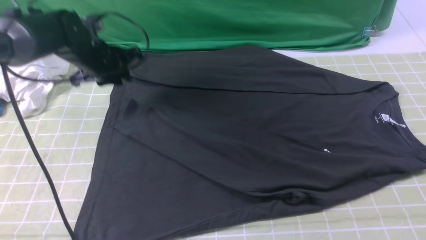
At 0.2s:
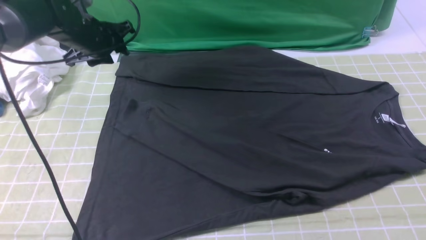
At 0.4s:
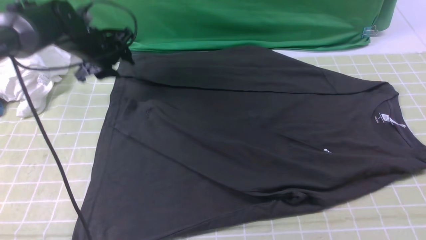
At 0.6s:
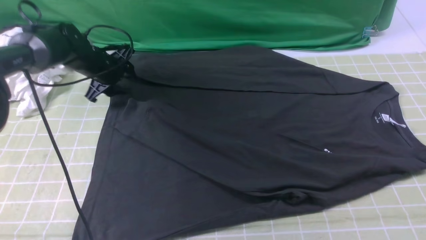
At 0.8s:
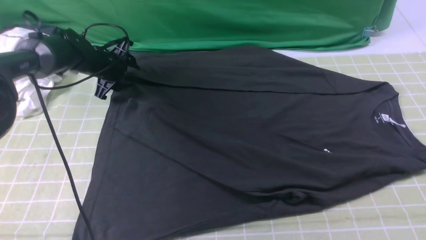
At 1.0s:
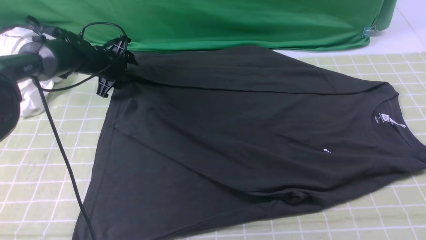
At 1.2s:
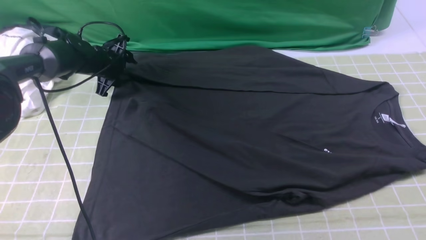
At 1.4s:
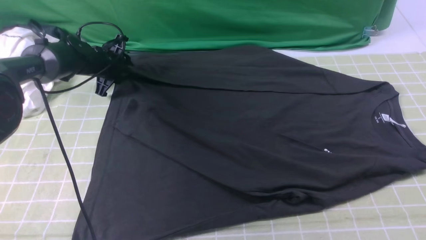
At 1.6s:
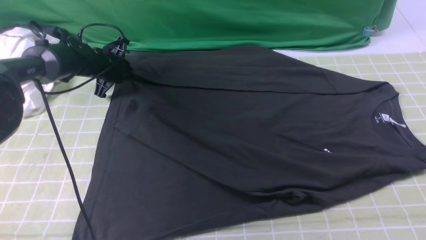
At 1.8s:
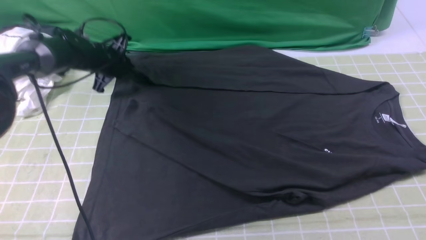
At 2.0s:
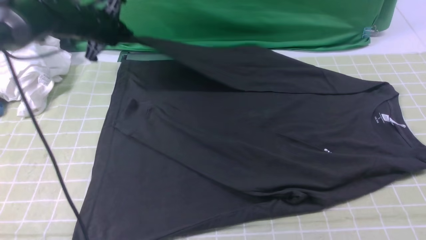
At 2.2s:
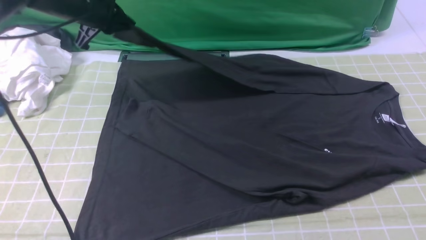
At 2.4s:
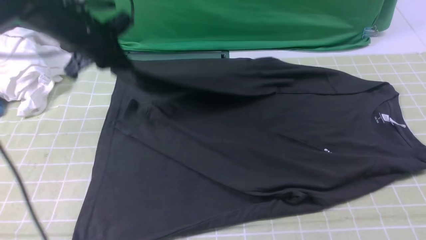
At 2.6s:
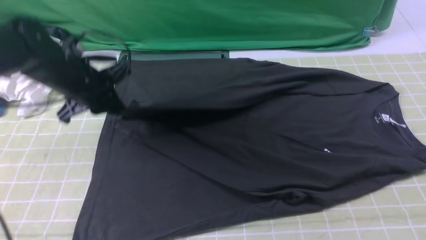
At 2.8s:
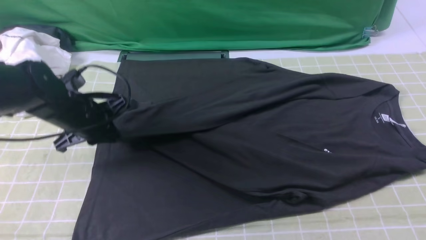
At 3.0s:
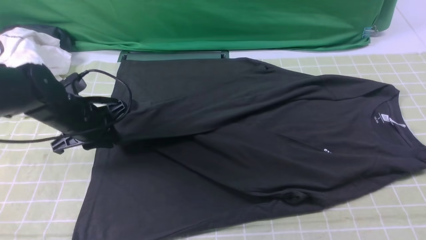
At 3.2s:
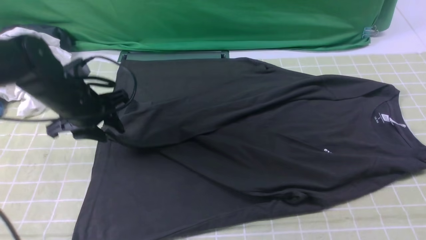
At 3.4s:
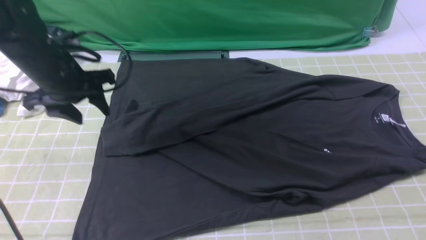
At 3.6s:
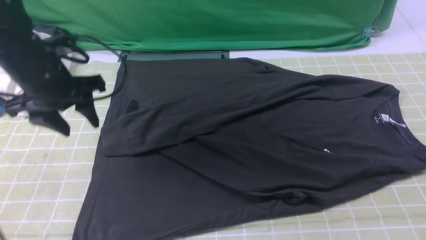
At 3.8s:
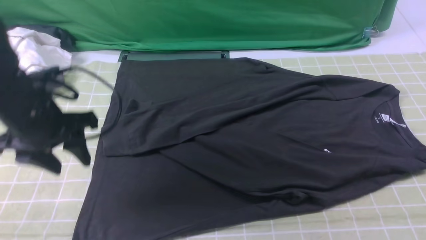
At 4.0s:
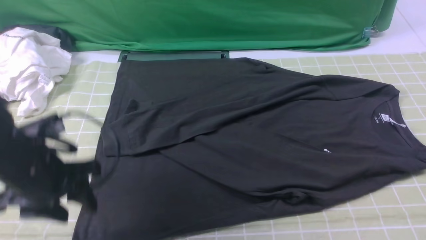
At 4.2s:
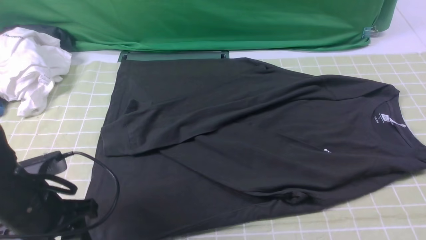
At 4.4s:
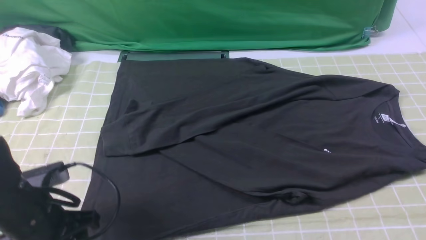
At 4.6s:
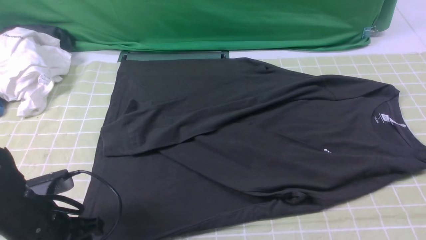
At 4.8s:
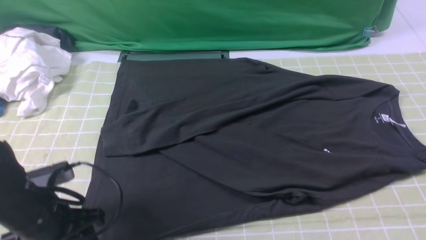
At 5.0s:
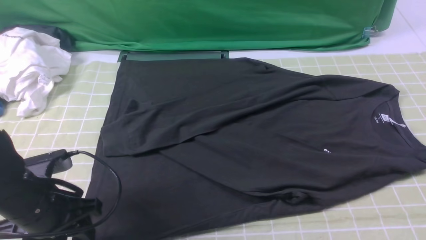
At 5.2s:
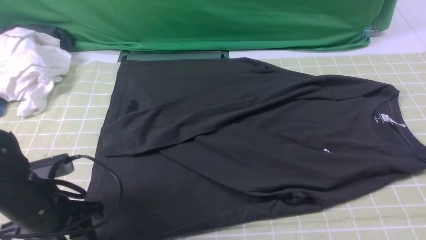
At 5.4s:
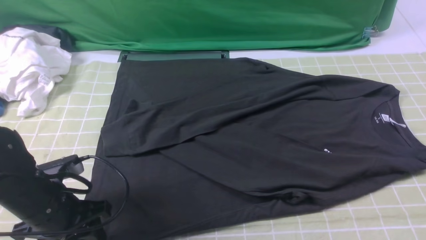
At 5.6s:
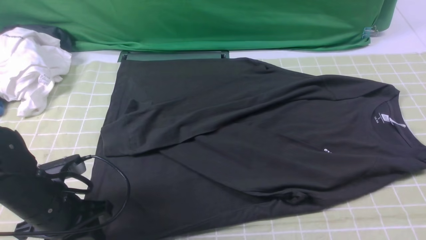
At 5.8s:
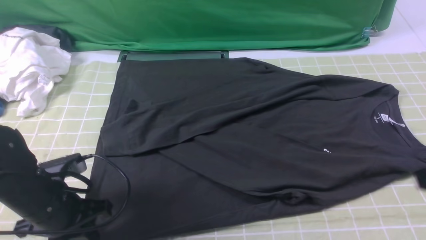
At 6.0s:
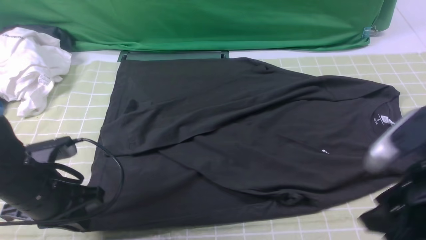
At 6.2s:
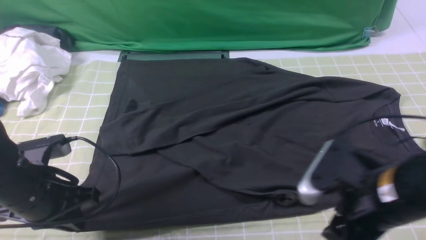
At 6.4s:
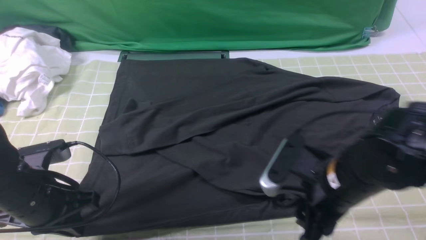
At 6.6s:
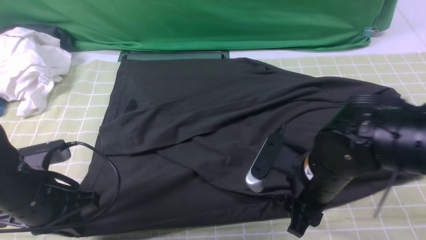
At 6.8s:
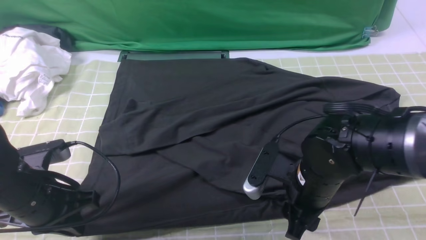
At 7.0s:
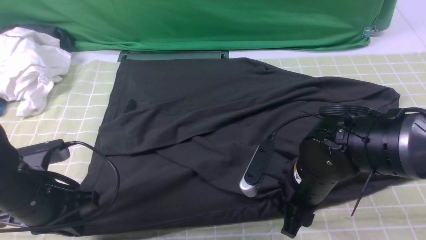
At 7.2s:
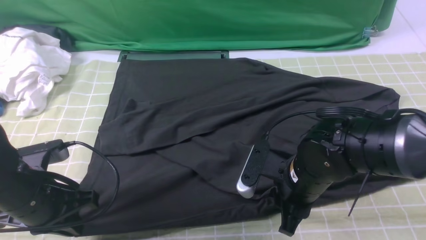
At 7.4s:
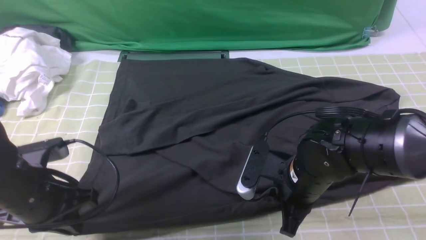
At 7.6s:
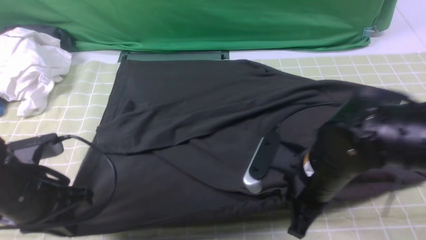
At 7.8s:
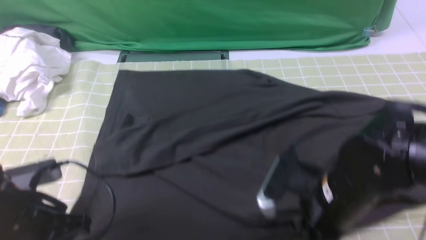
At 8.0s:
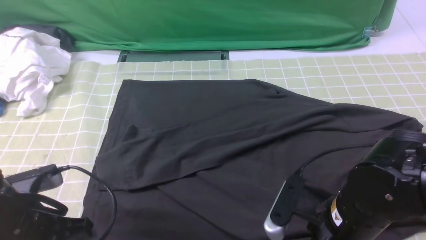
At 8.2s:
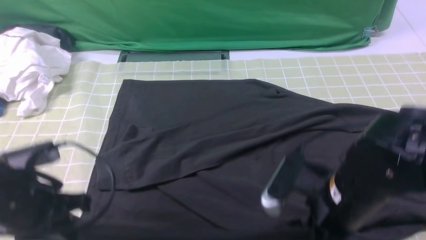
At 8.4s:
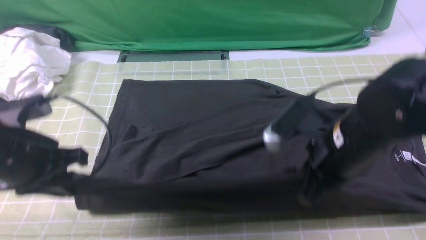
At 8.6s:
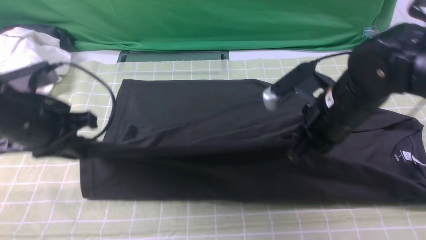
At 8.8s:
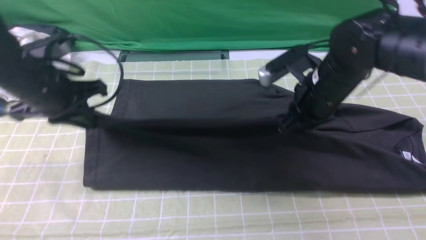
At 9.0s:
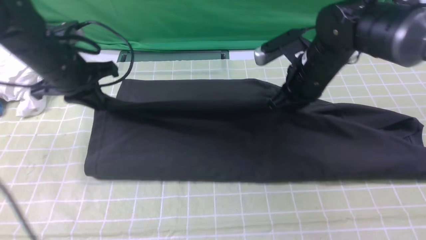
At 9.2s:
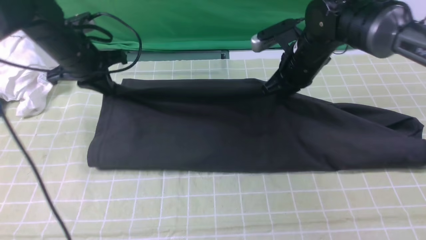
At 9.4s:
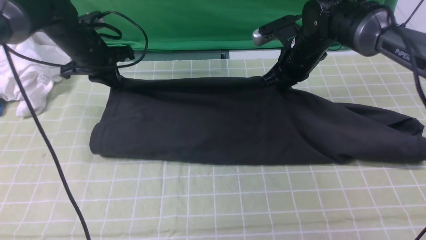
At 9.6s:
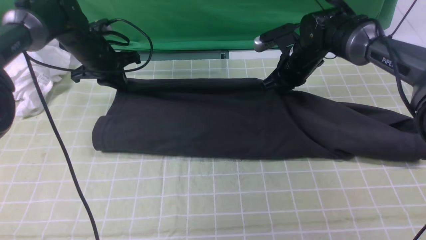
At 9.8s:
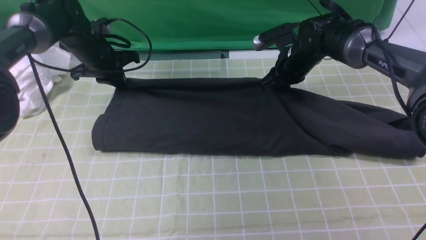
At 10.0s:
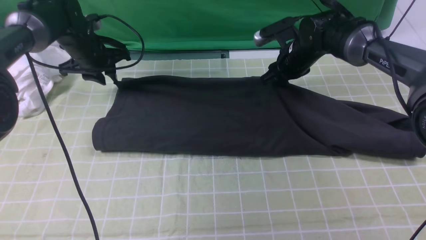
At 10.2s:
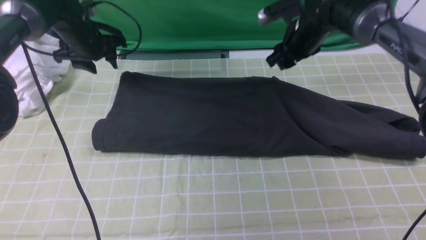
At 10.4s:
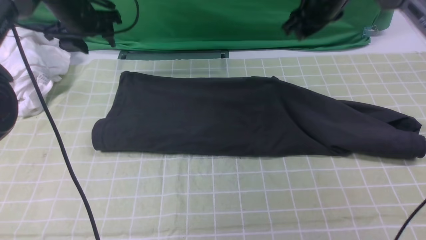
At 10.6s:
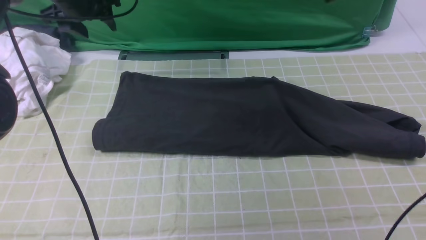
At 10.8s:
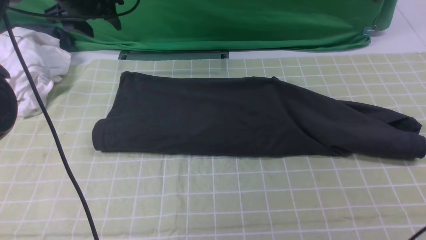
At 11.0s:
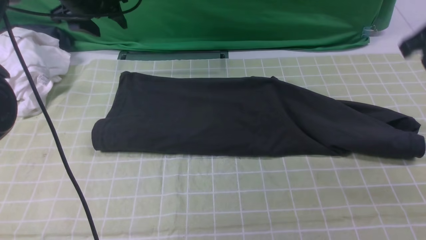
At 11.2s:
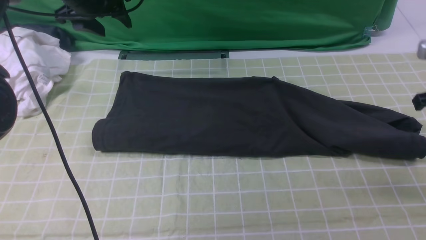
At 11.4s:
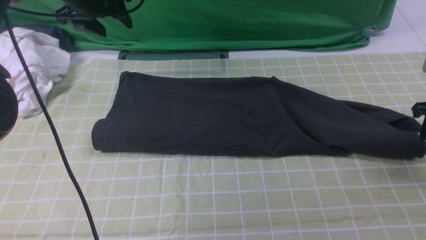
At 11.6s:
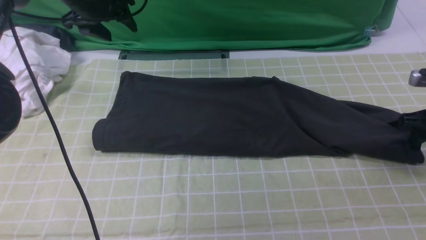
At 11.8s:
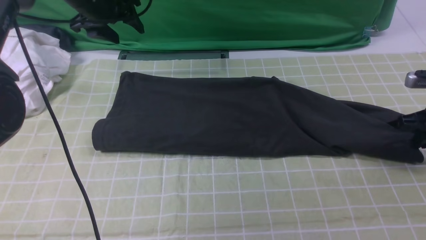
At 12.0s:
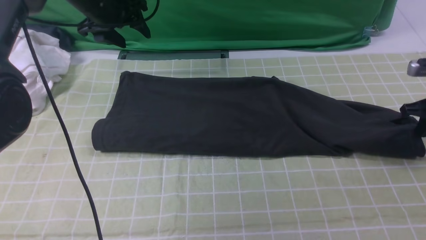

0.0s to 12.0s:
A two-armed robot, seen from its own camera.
Step, 0.2s to 1.6s: use the left arm to clamp the cuff farthest from it.
Step, 1.8s to 3.2s: use the left arm to drag and drop the cuff onto the cuff closest to the left arm.
Step, 3.4s to 7.4s: use both arms simultaneously to clamp the lower edge of the clothing fabric.
Step, 7.6s to 10.2s: use both arms to drag the lower edge of the fabric forward and fold it over the upper edge.
0.0s to 1.6s: The left gripper heads downward and forward, covering some 10 cm.
1.6s to 3.0s: The left gripper shifts approximately 15 cm backward.
3.0s to 4.4s: The left gripper travels backward by about 15 cm, and opens up.
4.4s to 6.0s: The right gripper moves to the left and downward, about 10 cm, and opens. The left gripper closes.
6.0s to 7.6s: The right gripper shifts roughly 15 cm to the left and downward, and closes its fingers.
7.6s to 9.0s: Both grippers travel together forward, approximately 20 cm.
9.0s to 10.4s: The right gripper travels upward and forward by some 10 cm, and opens up. The left gripper travels forward by some 10 cm, and opens.
10.4s to 12.0s: The right gripper heads to the right, downward and backward, covering approximately 25 cm, and closes.

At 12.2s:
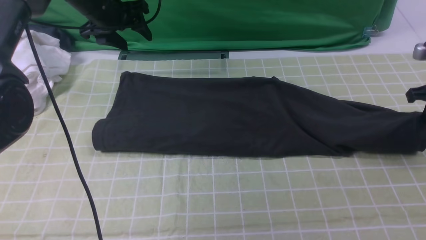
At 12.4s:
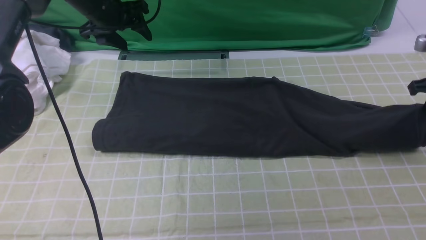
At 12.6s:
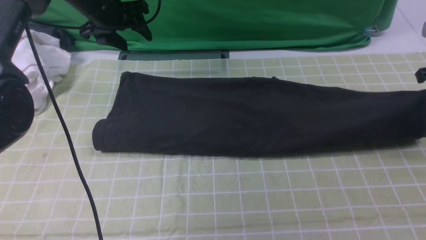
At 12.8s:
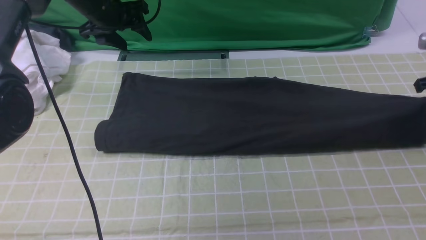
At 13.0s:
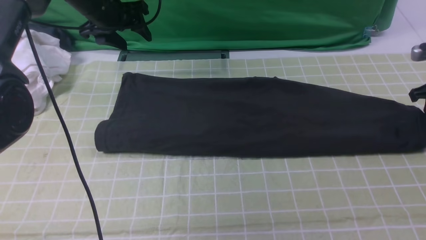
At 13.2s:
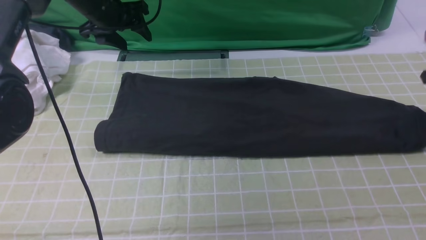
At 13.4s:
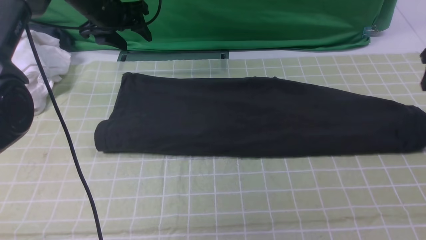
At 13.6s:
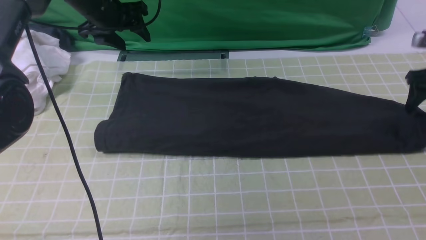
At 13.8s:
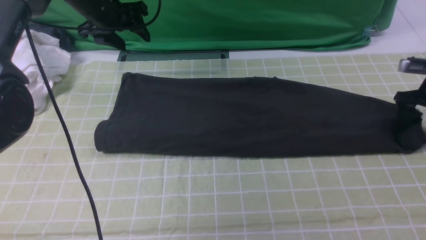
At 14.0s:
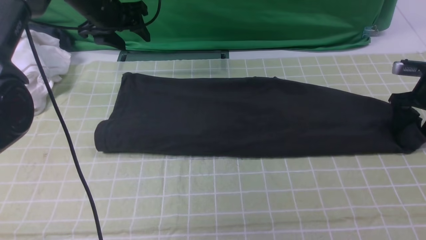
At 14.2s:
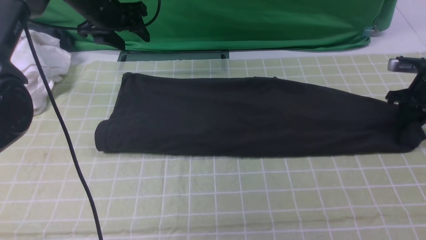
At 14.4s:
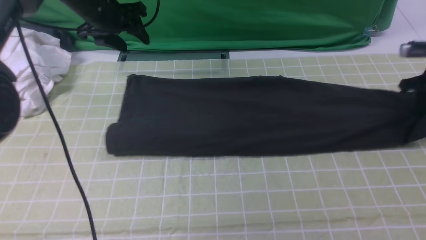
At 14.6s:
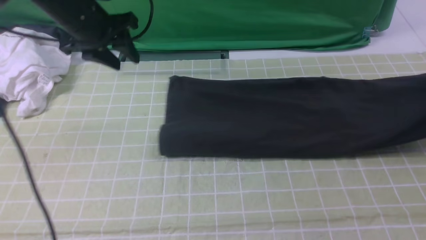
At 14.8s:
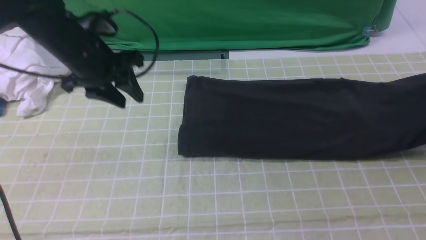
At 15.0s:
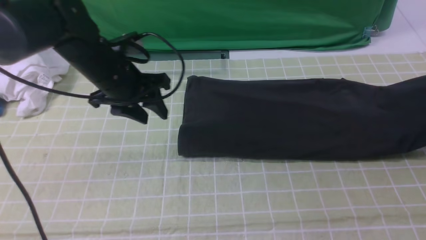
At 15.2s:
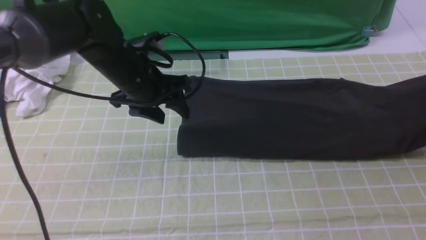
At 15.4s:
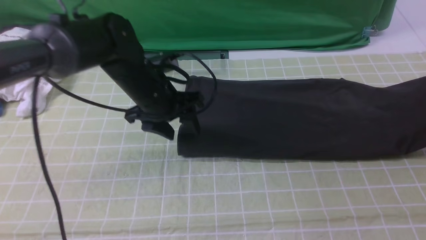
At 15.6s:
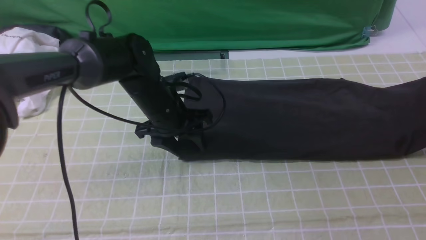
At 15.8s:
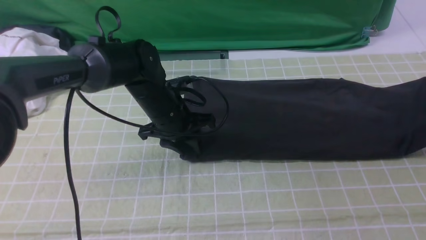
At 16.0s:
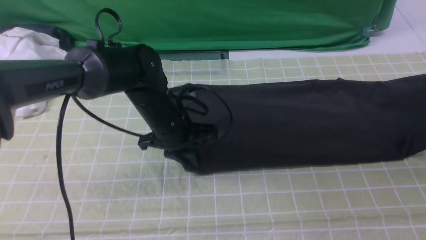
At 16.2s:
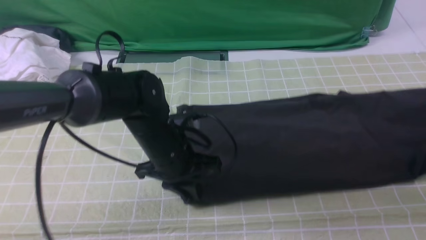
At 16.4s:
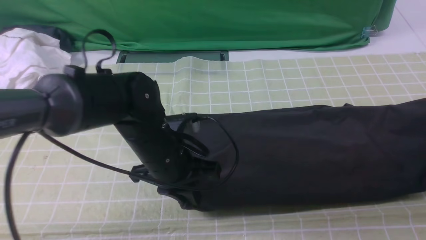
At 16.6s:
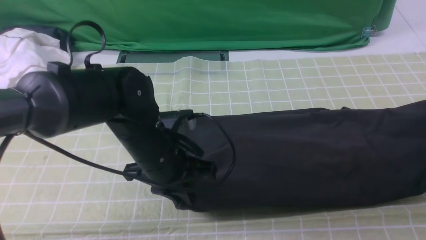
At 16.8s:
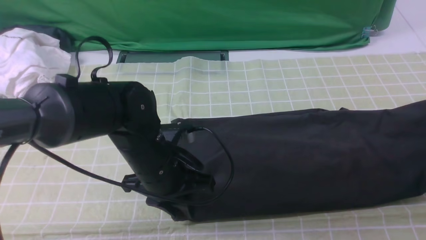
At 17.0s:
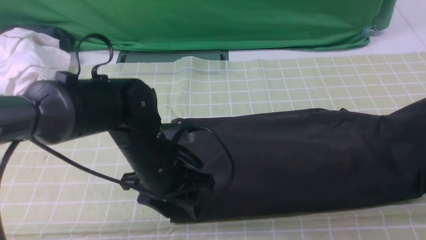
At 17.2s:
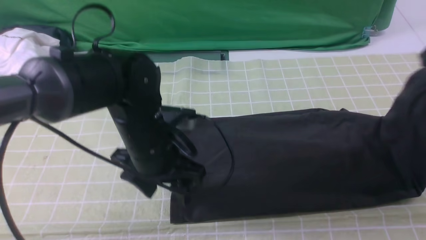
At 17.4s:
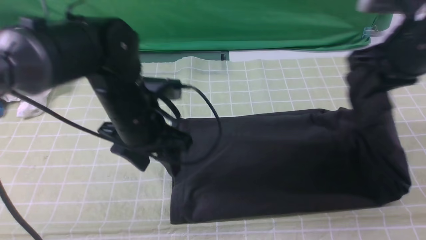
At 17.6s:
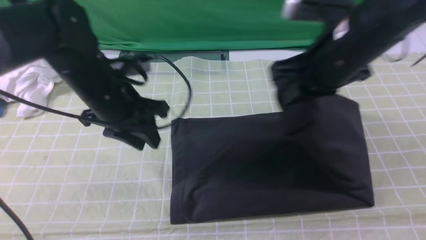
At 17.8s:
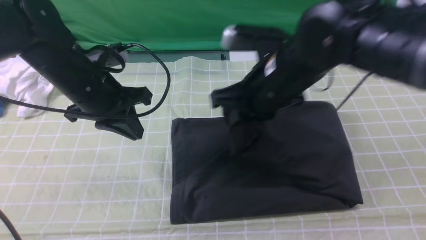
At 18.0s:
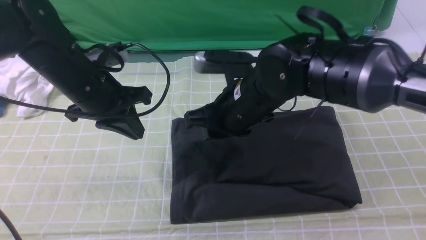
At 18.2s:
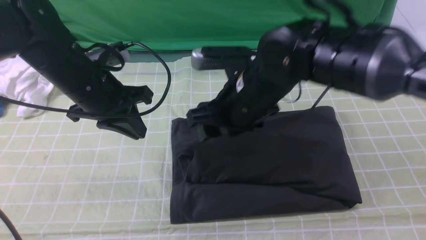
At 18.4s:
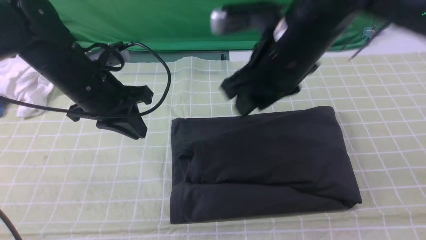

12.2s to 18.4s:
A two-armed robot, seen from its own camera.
Step, 12.2s to 14.2s: use the right arm to clamp the right edge of the fabric.
Step, 14.4s to 18.2s: use the right arm to drag the right edge of the fabric to the left and folds it over the left edge.
12.2s to 13.8s: The right gripper is displaced forward by roughly 5 cm, and opens.
13.8s to 15.4s: The right gripper goes approximately 10 cm upward, and closes, while the left gripper goes roughly 20 cm backward, to the right and downward.
15.4s to 16.8s: The grippers both shift backward by approximately 10 cm. The left gripper closes.
16.8s to 18.4s: The left gripper moves to the left, forward and upward, some 15 cm, and opens, then closes once more. The right gripper shifts about 35 cm to the left, and opens its fingers.
